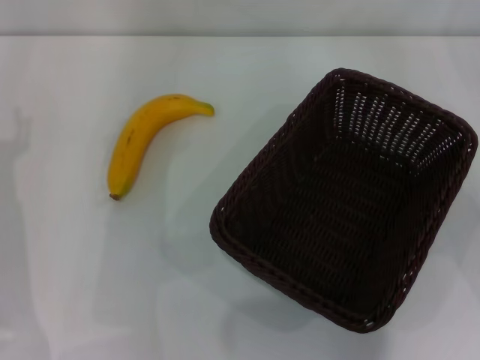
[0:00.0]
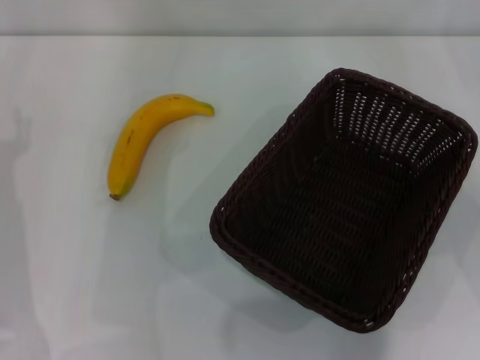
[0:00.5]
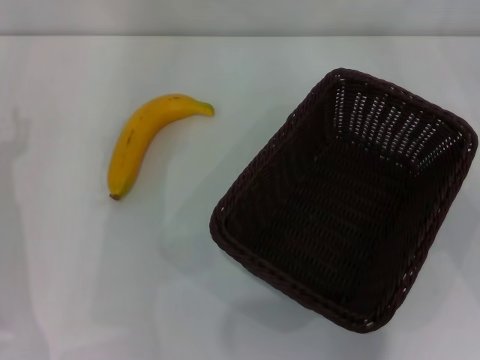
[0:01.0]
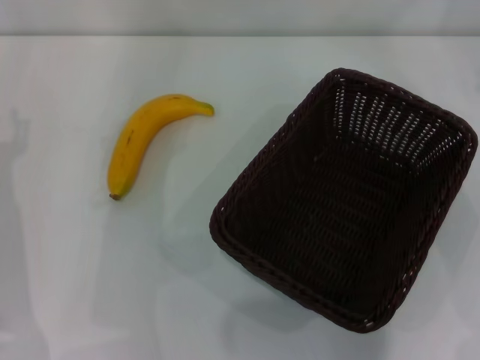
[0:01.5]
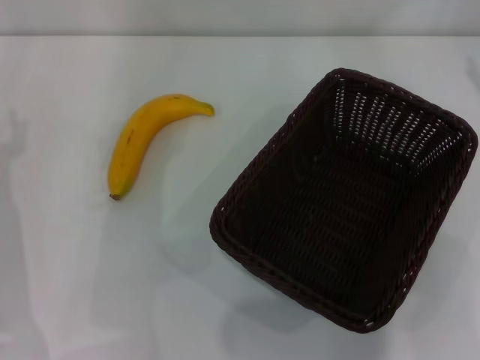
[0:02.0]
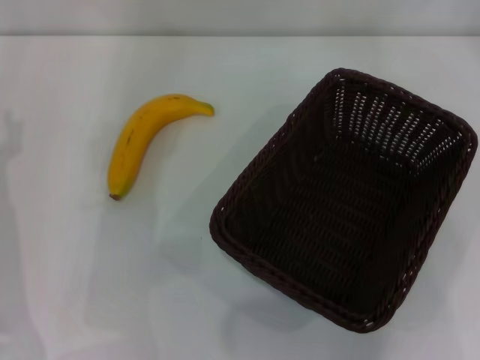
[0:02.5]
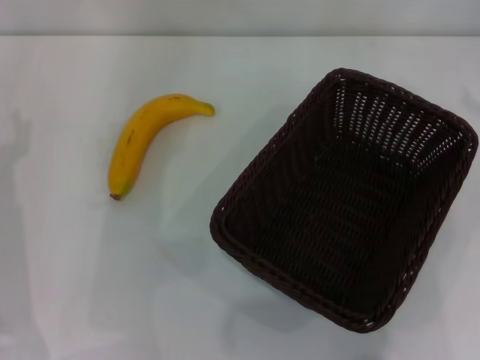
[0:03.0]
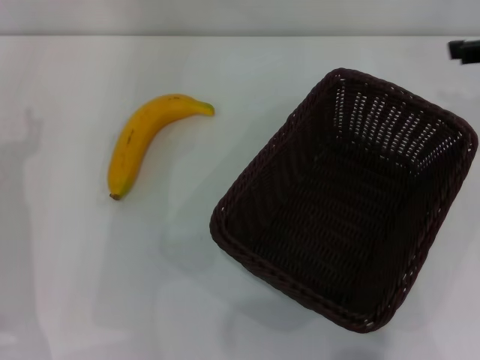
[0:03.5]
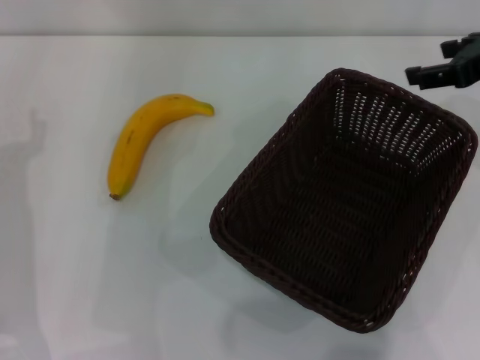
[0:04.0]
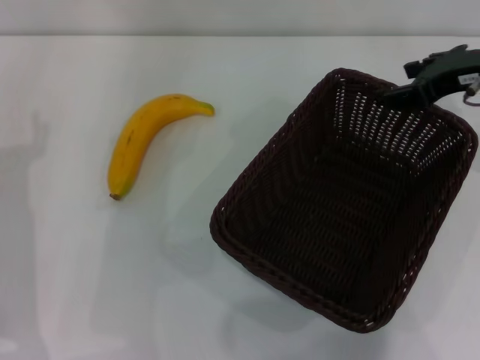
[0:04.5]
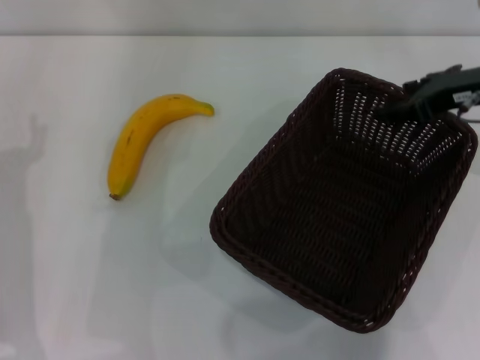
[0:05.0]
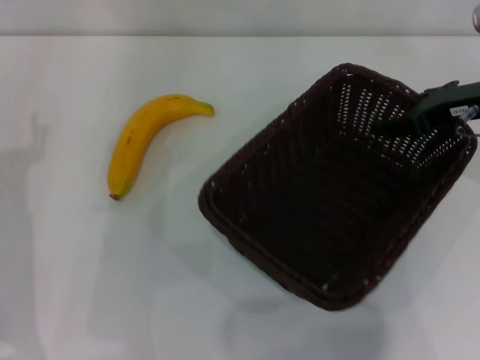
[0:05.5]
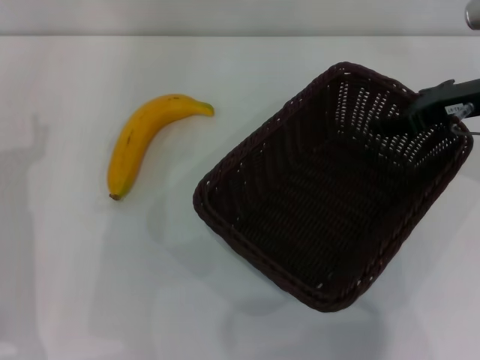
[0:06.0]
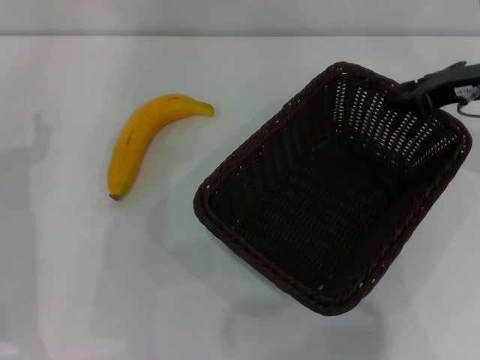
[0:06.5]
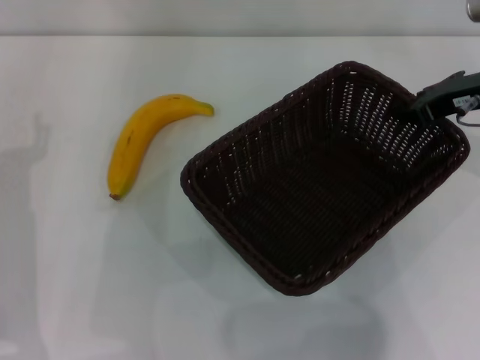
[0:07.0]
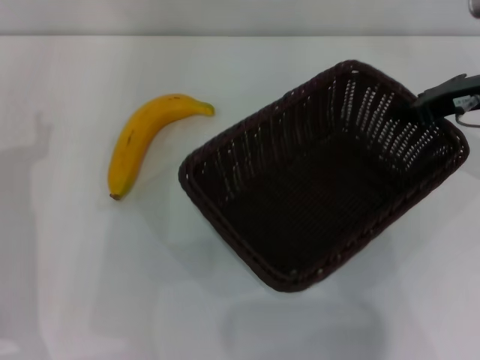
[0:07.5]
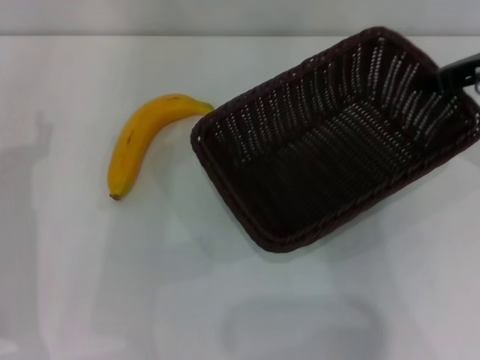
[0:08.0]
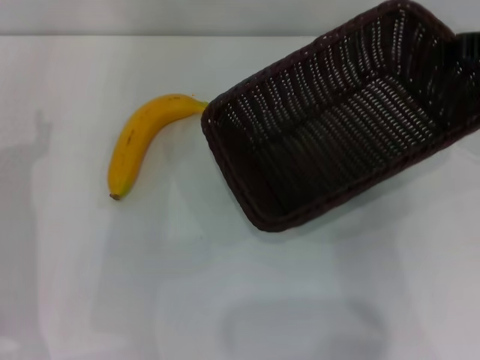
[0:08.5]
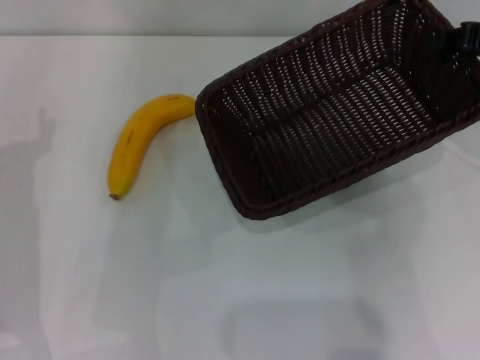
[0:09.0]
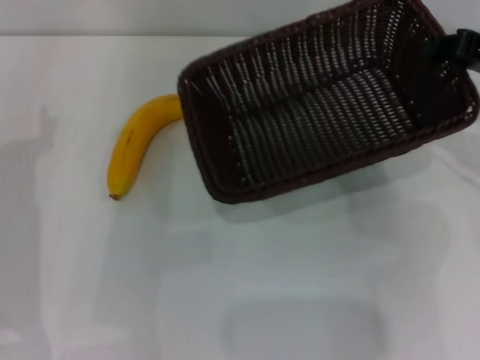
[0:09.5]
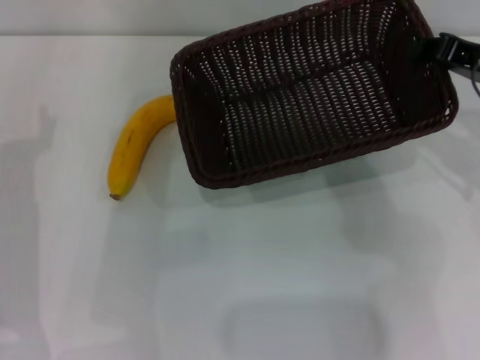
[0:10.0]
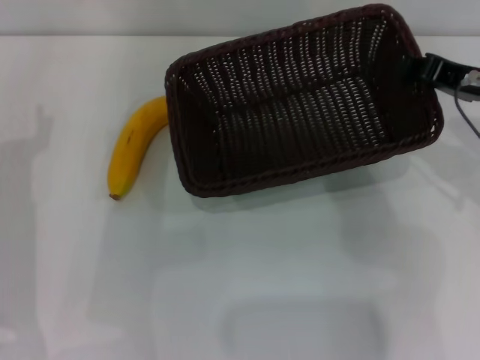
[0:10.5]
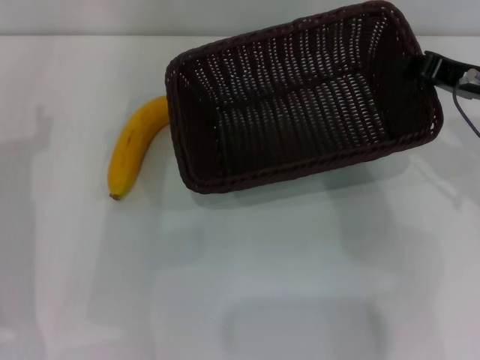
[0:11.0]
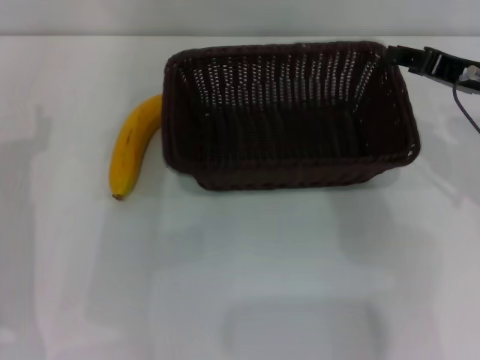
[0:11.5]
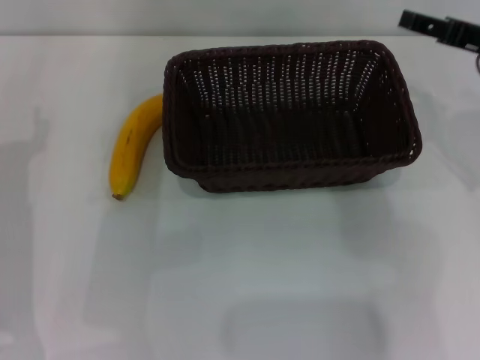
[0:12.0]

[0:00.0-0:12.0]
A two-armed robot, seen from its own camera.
Step, 0:00.0 to 0:07.5: Pick up the dark basket with the right gripper.
Step, 0:08.0 to 0:11.5: Place the dark basket in the center of view with the right gripper.
0:02.0 to 0:04.0: The right gripper heads to the left, covering approximately 5 cm.
0:04.0 to 0:06.0: The right gripper shifts roughly 5 cm downward.
0:06.0 to 0:08.0: The right gripper closes up.
0:10.0 to 0:12.0: The right gripper opens up.

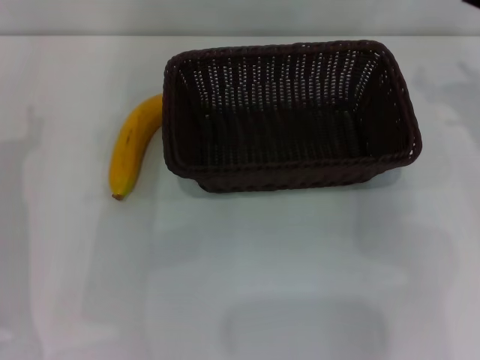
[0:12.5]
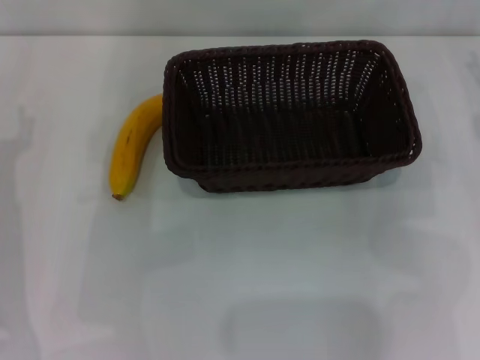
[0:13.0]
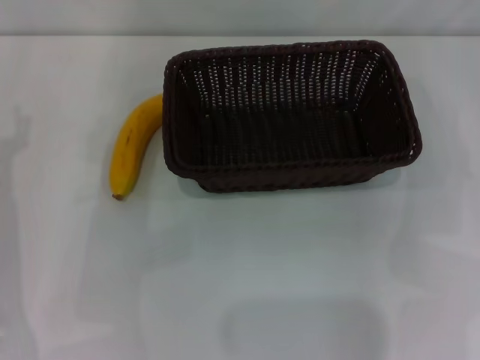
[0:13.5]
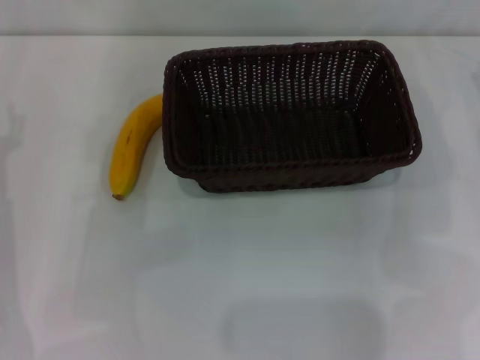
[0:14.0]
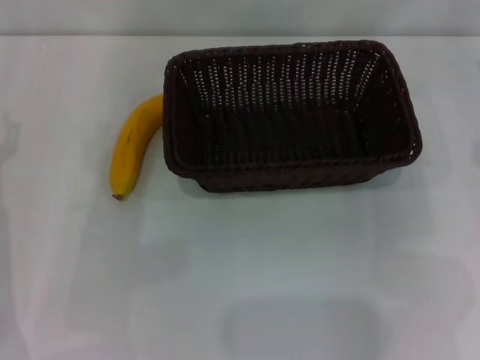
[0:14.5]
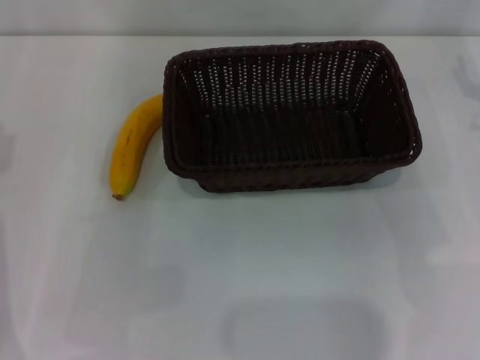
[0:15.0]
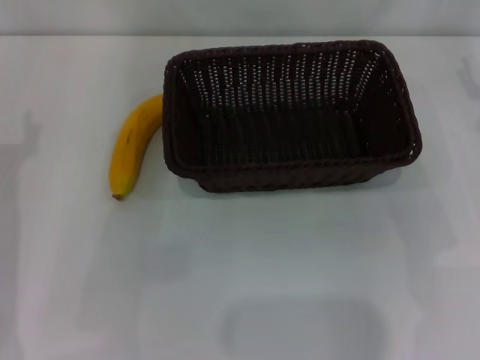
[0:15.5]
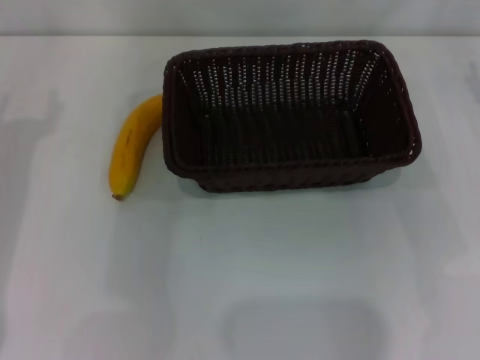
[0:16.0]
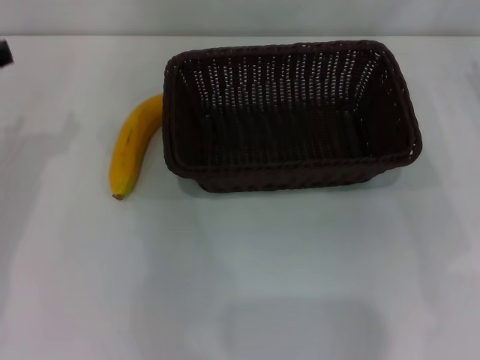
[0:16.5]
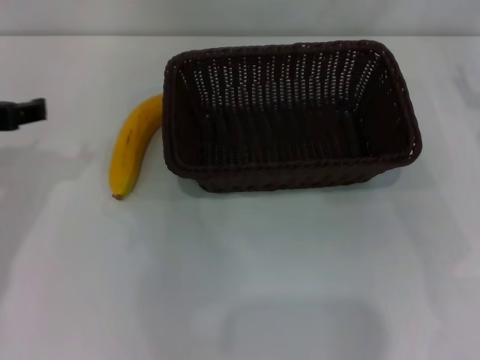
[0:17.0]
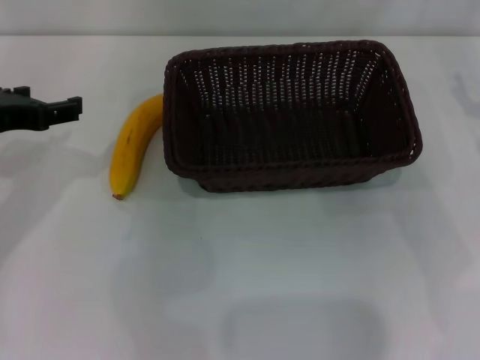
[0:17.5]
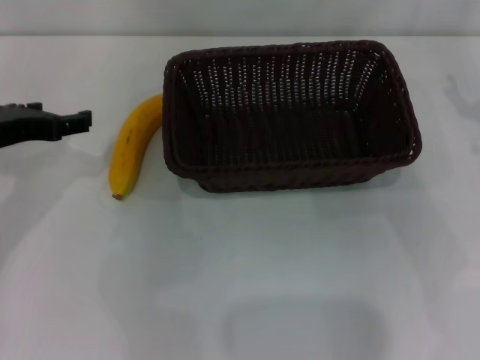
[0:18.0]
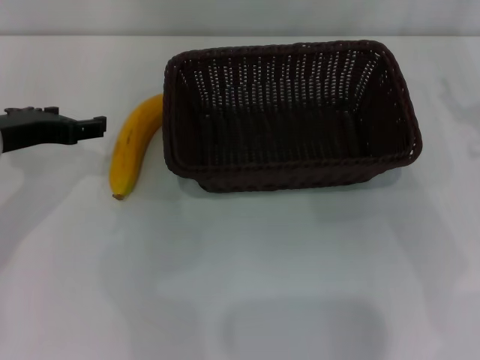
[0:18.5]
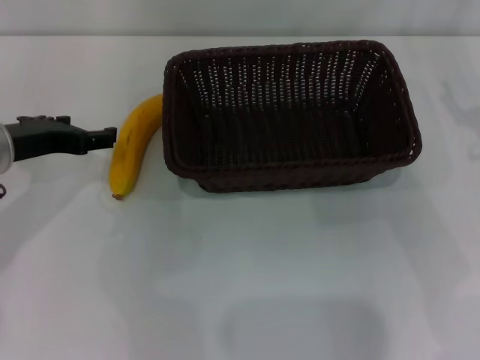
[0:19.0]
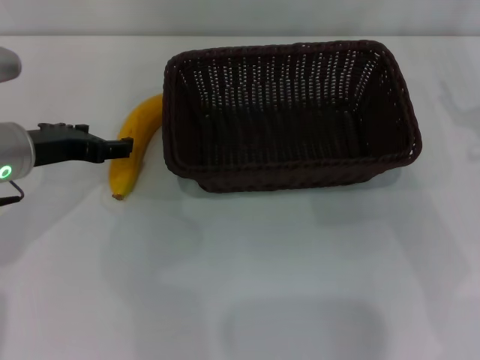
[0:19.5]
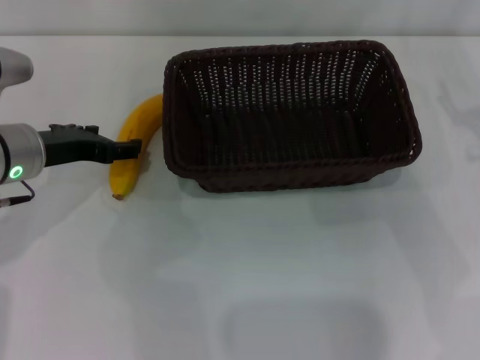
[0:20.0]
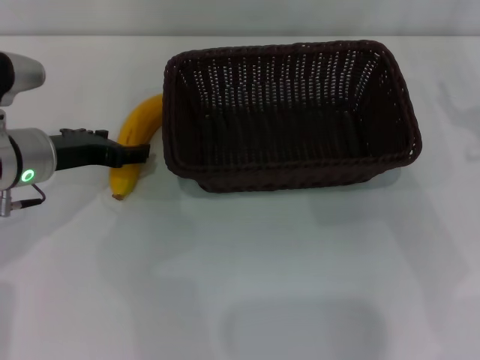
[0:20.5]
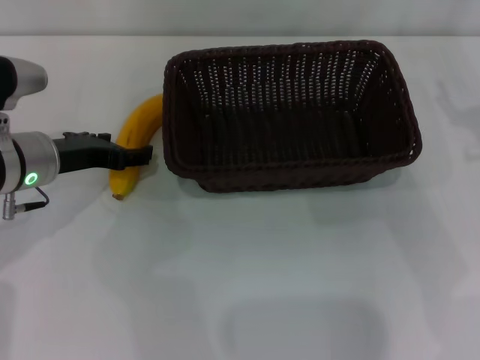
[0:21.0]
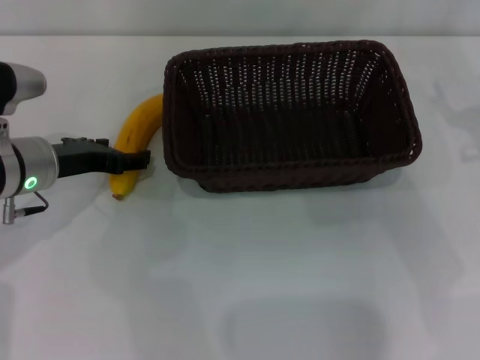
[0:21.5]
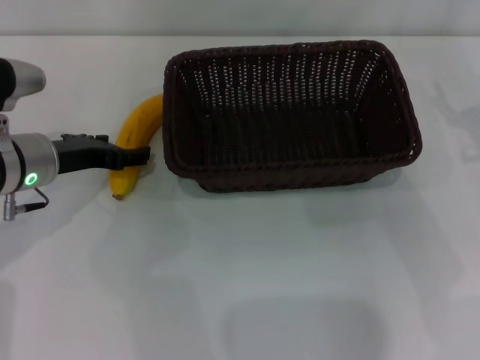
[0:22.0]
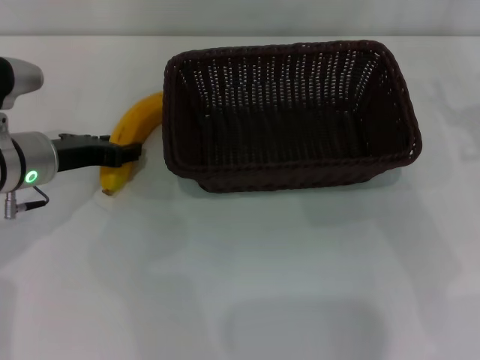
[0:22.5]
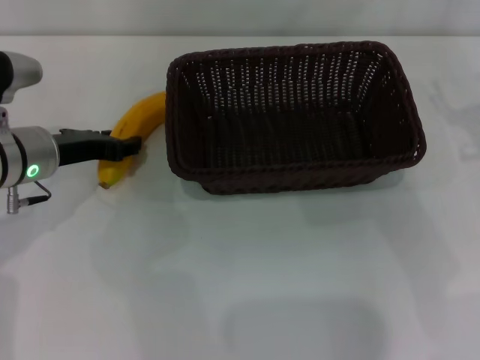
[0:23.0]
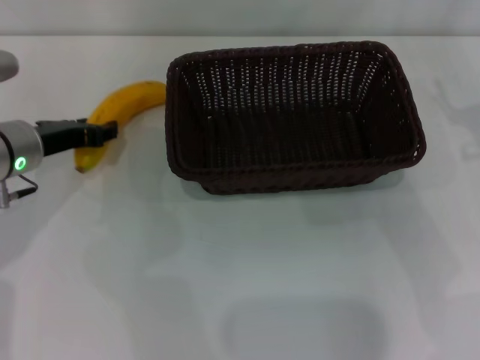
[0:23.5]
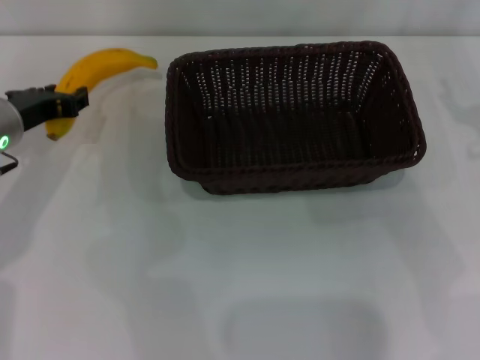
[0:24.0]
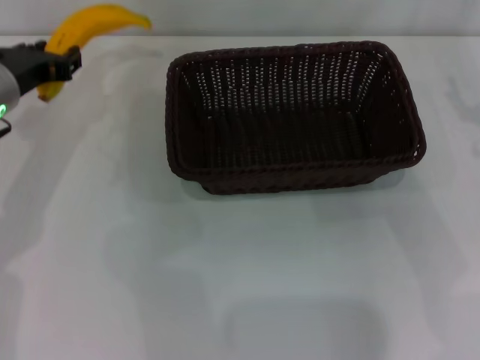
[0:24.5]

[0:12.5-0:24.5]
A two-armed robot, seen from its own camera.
Step, 0:12.5 to 0:24.0: Pick up the banana with the left gripper.
0:16.5 to 0:18.5: The left gripper shifts roughly 5 cm downward.
0:18.5 to 0:20.5: The left gripper moves some 5 cm.
0:20.5 to 0:22.5: Both grippers stay put.
0:22.5 to 0:24.5: The left gripper moves roughly 5 cm, and closes its fingers.

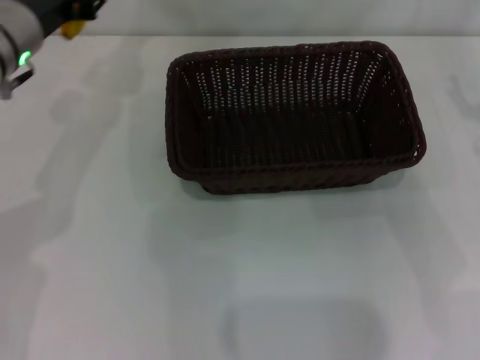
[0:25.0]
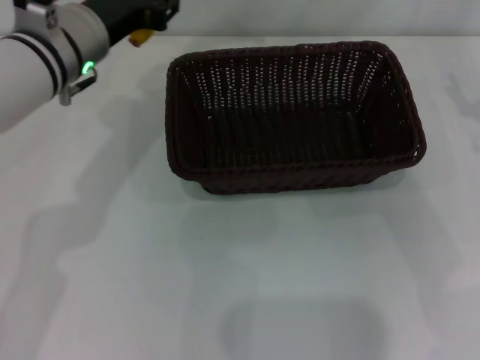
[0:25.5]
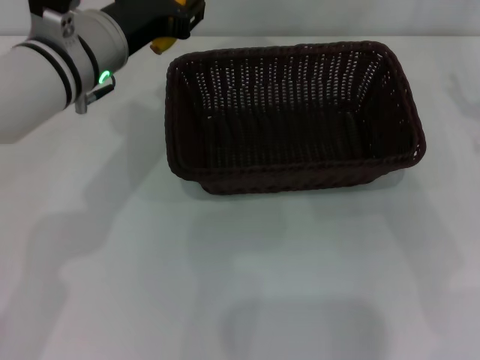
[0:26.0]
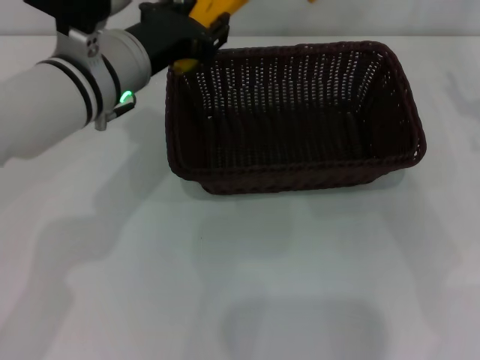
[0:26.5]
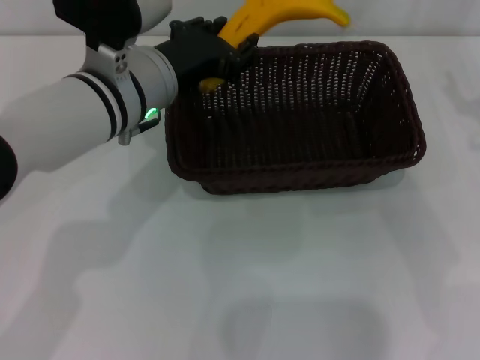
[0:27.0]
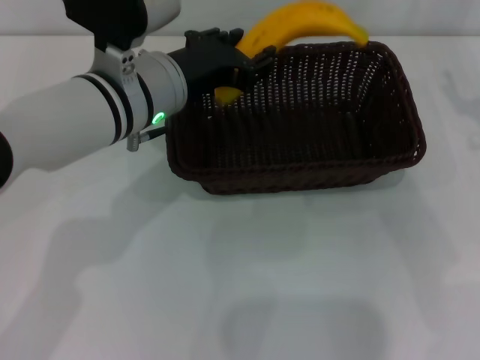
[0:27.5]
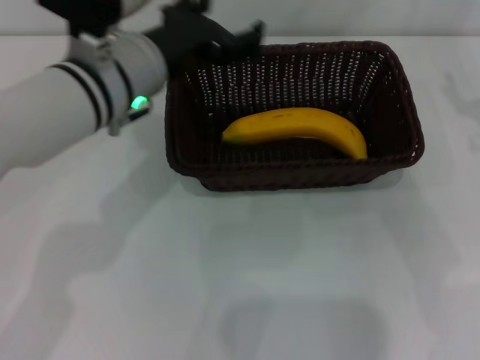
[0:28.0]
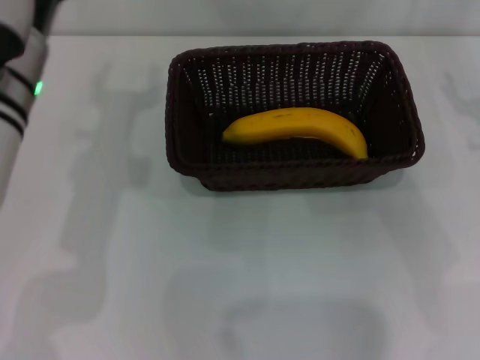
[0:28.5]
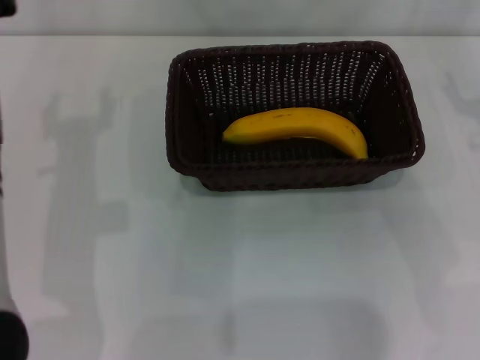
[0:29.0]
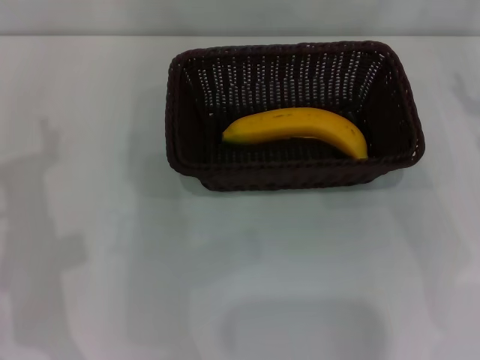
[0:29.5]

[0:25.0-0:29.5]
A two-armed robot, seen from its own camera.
Step, 0:25.0 to 0:27.5: Place the banana into the dark basket with the left gripper.
0:25.0 to 0:27.0: The left gripper is displaced to the right by about 10 cm.
0:27.0 to 0:29.5: The left gripper travels to the left and backward by approximately 15 cm, and opens up.
